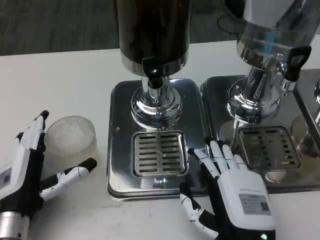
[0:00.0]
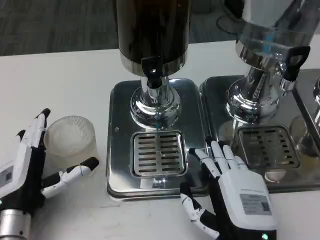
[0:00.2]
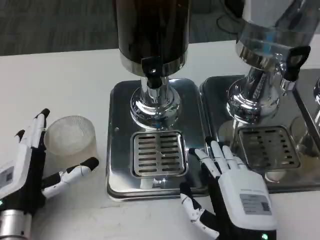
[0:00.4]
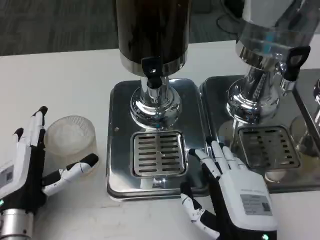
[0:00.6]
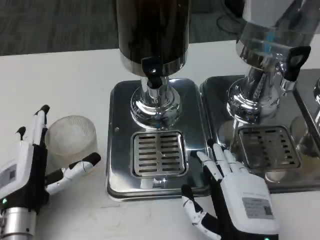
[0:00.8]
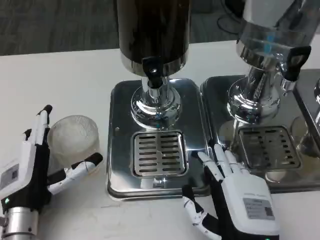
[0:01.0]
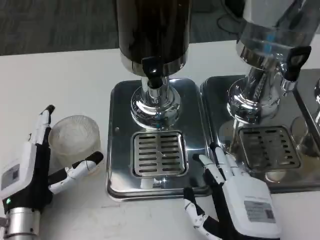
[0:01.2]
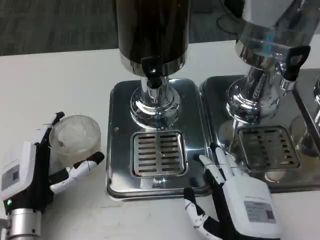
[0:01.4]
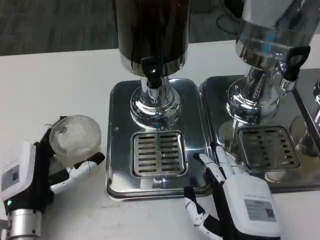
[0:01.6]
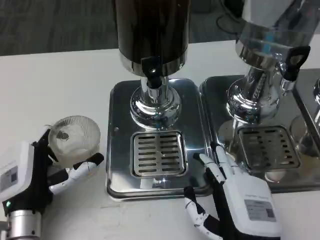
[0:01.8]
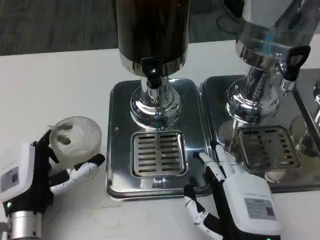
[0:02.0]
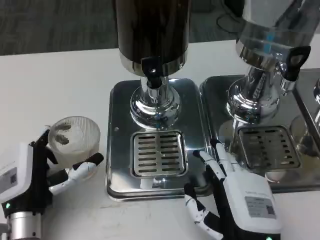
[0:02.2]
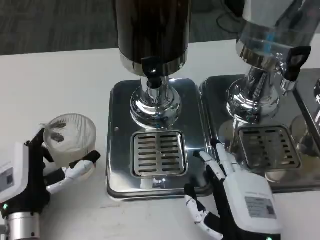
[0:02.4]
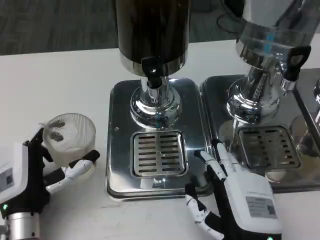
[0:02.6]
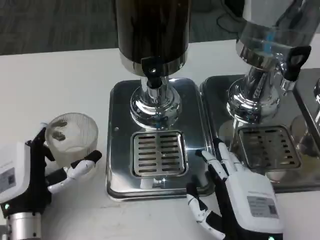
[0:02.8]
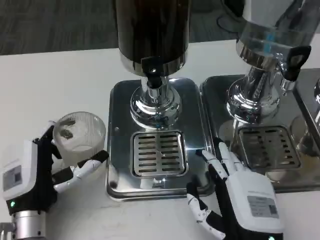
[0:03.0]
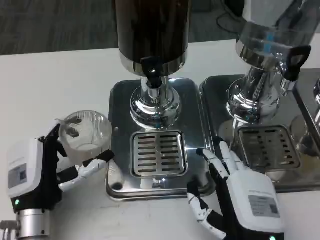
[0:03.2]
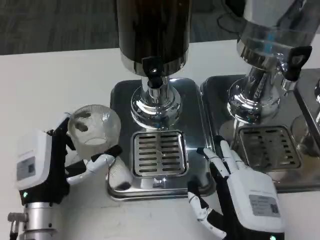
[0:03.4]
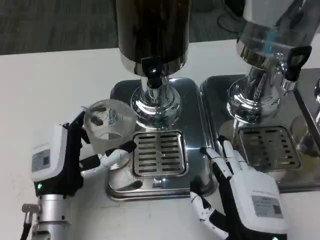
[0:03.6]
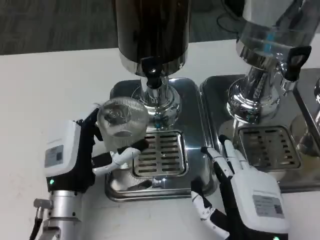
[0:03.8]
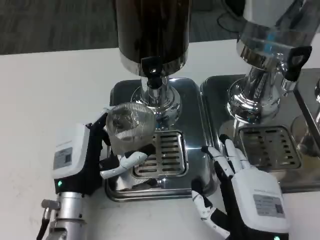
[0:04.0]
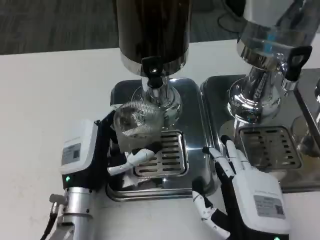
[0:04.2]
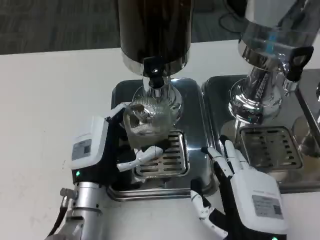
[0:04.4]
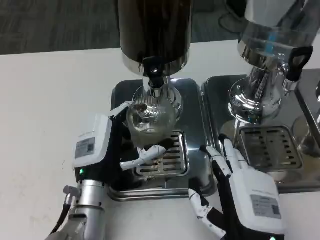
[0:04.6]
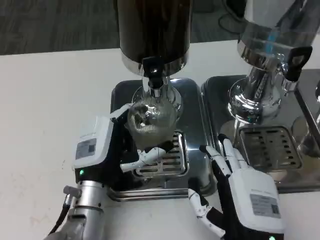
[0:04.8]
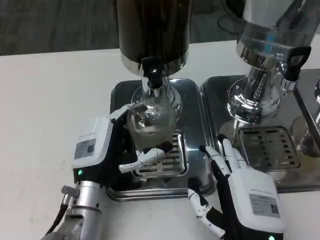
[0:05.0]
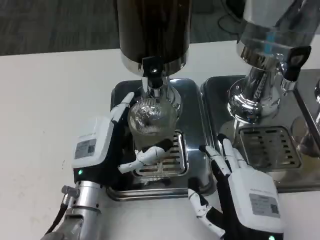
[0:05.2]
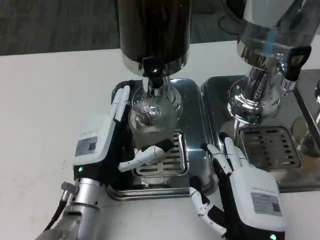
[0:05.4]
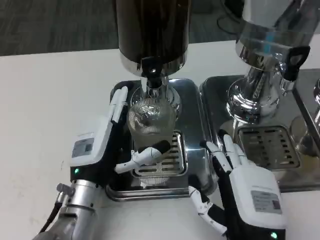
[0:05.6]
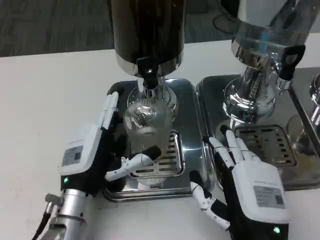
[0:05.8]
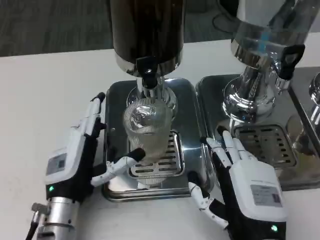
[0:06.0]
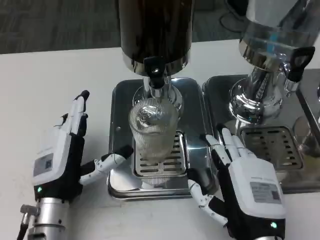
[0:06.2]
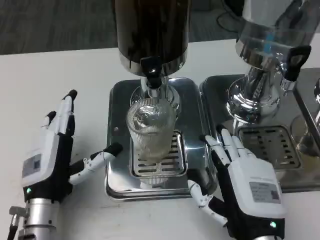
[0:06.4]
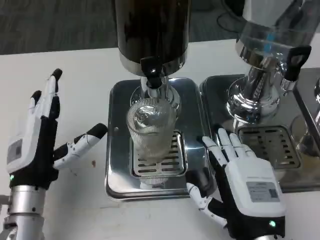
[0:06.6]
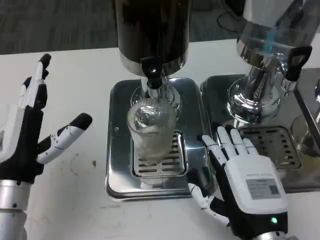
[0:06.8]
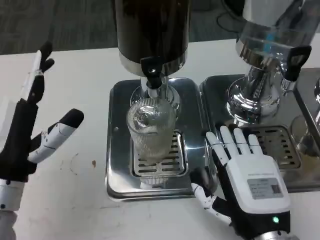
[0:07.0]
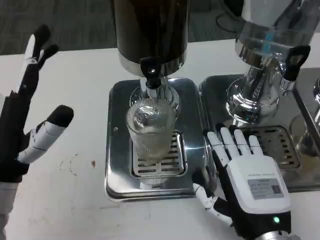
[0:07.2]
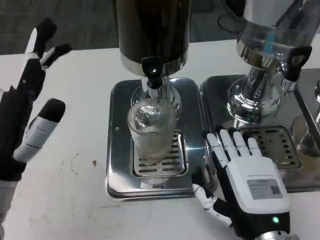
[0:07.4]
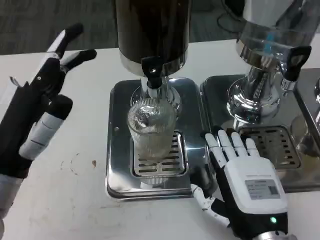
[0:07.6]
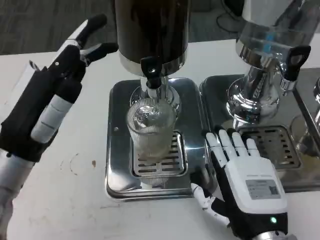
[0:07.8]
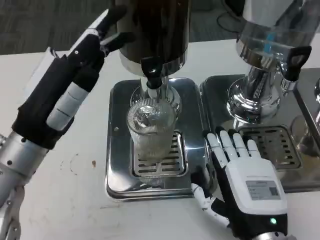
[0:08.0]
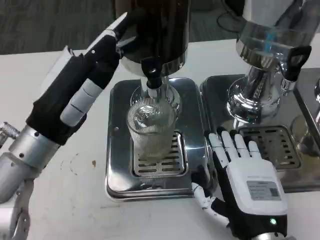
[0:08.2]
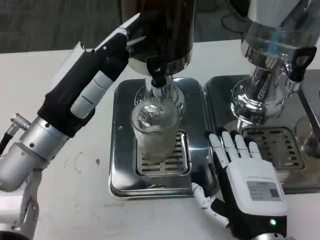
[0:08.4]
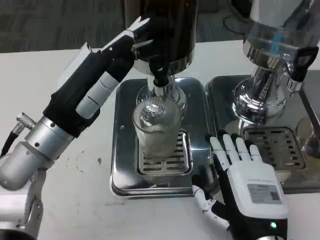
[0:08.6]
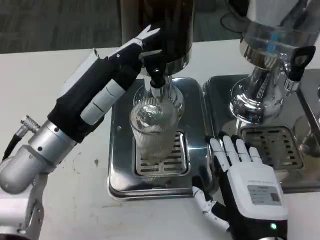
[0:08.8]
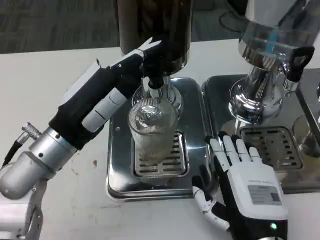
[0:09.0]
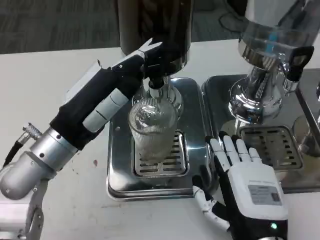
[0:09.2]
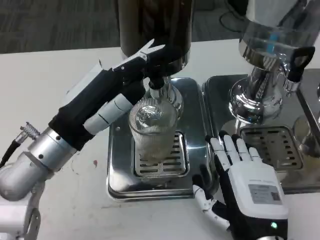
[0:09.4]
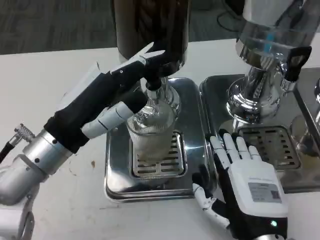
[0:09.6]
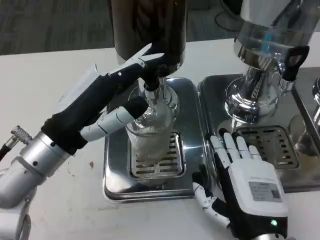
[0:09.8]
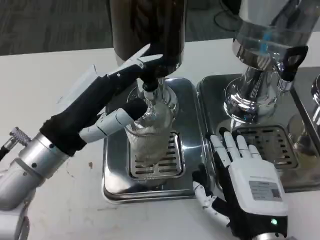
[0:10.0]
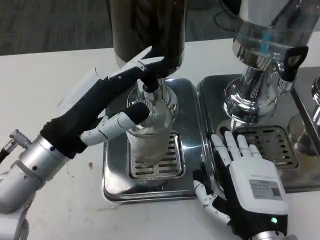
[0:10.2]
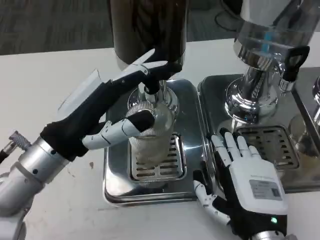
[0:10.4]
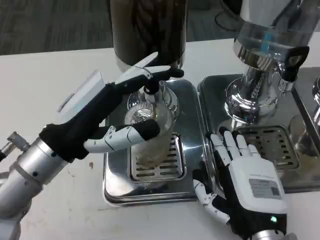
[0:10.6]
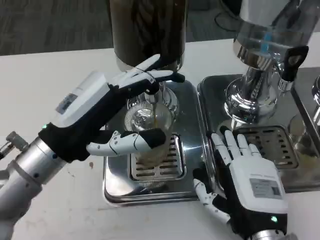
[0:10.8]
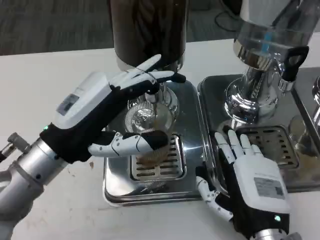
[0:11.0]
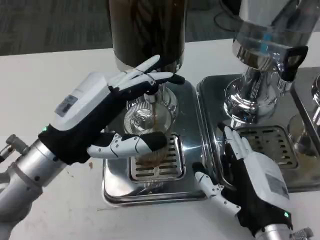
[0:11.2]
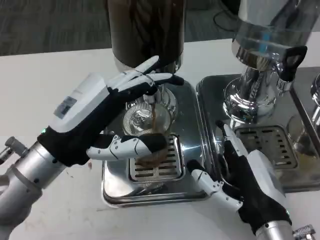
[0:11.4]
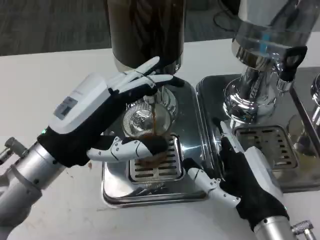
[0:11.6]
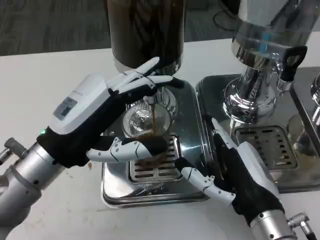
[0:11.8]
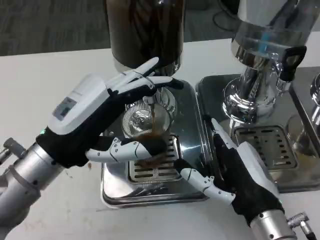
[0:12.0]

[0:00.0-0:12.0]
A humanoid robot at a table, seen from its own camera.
Task of the whole recording: Grasp the cup under the faucet to collect the drink, then remove the cup.
0:00.0 to 0:03.0: The hands make only small movements.
0:03.0 to 0:04.4: The left hand moves to the right, approximately 5 cm.
0:04.4 to 0:06.0: The left hand moves about 5 cm.
0:06.0 to 0:07.6: The left hand moves upward and to the left, approximately 15 cm.
0:07.6 to 0:09.0: The left hand shifts approximately 5 cm forward.

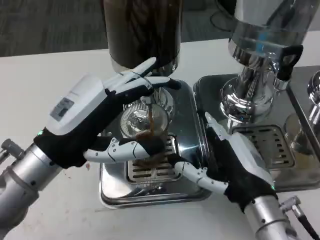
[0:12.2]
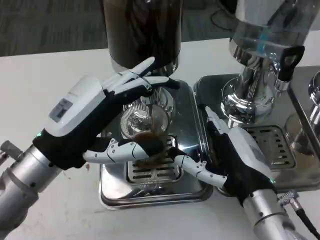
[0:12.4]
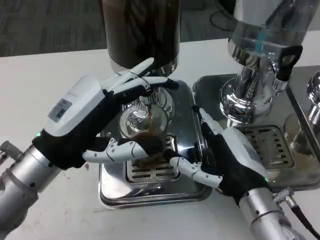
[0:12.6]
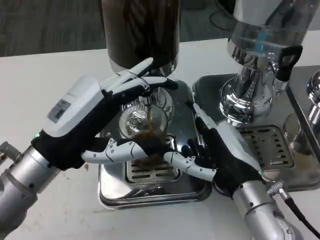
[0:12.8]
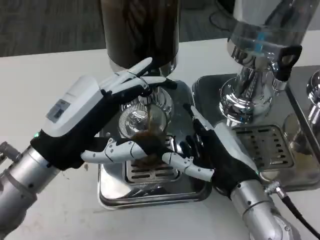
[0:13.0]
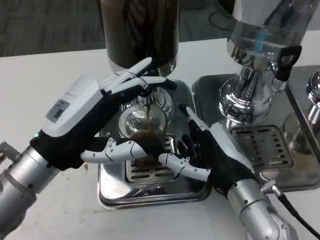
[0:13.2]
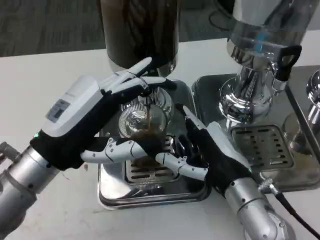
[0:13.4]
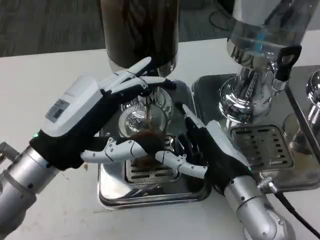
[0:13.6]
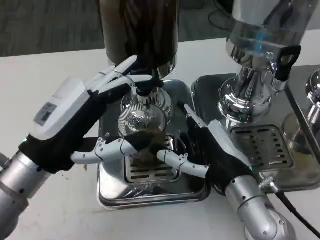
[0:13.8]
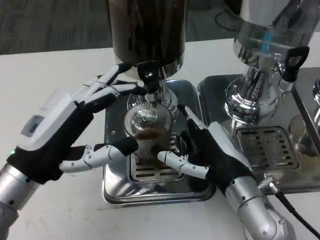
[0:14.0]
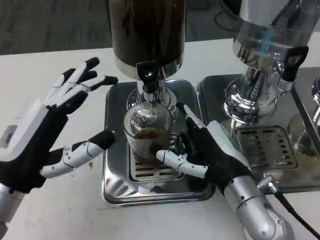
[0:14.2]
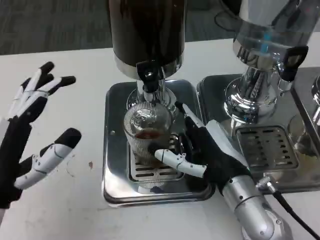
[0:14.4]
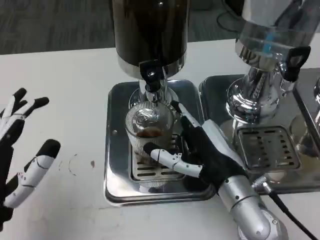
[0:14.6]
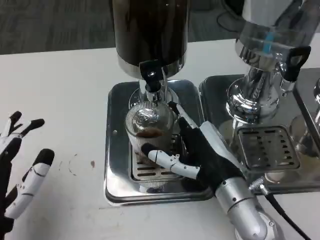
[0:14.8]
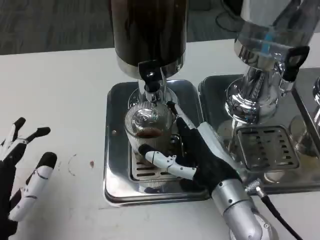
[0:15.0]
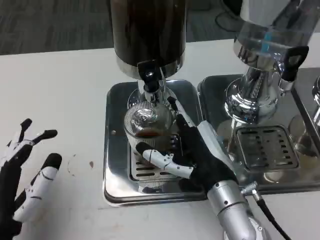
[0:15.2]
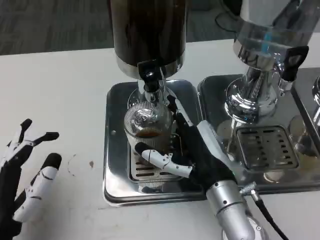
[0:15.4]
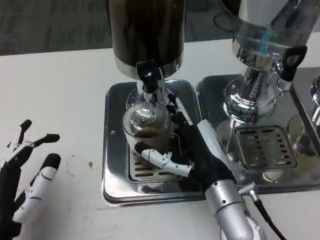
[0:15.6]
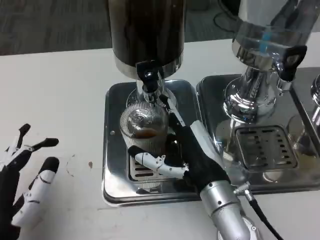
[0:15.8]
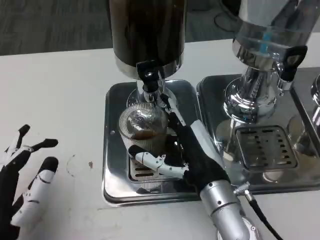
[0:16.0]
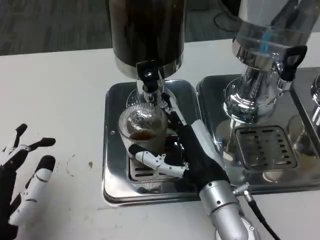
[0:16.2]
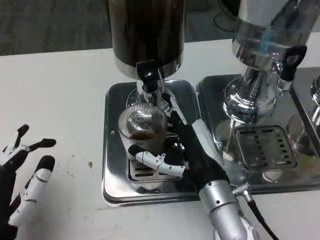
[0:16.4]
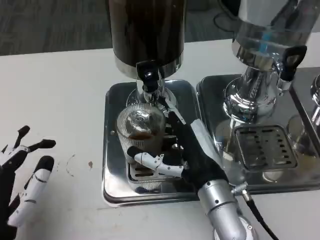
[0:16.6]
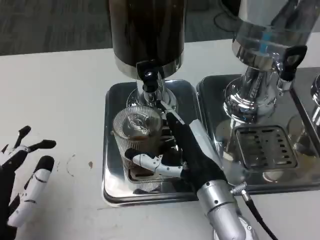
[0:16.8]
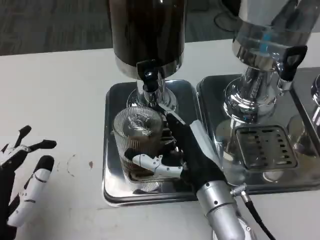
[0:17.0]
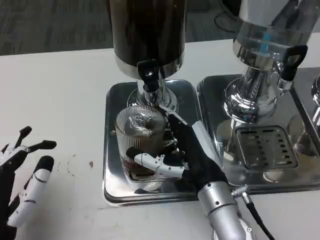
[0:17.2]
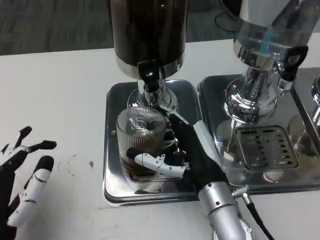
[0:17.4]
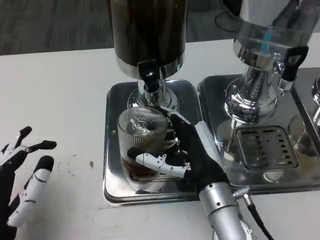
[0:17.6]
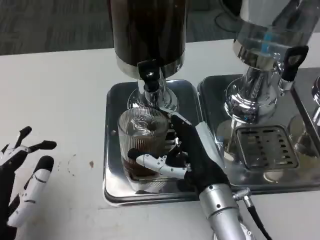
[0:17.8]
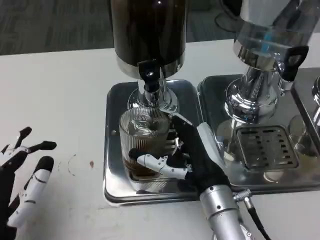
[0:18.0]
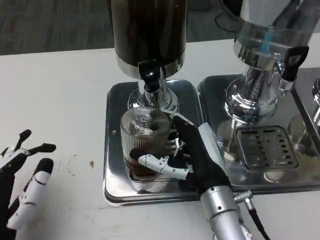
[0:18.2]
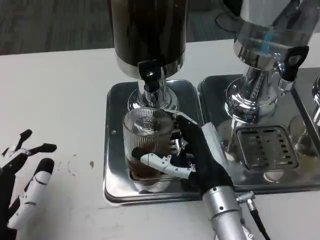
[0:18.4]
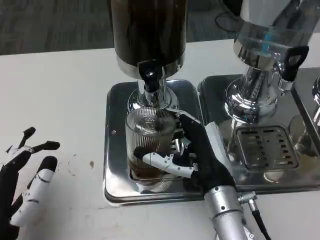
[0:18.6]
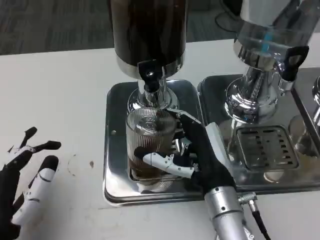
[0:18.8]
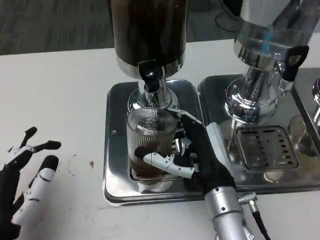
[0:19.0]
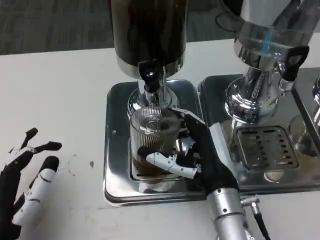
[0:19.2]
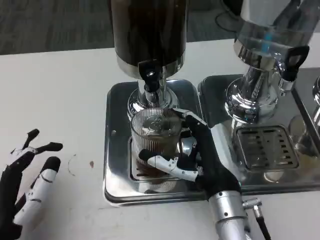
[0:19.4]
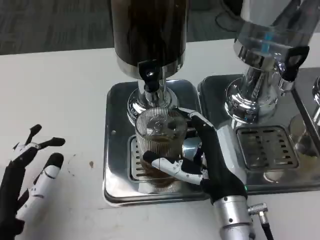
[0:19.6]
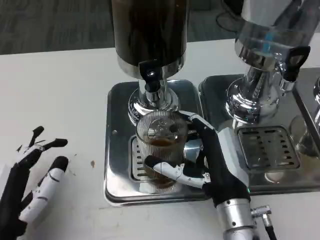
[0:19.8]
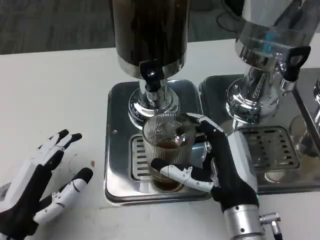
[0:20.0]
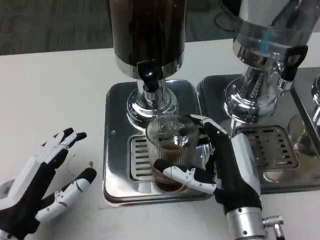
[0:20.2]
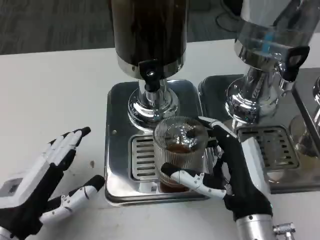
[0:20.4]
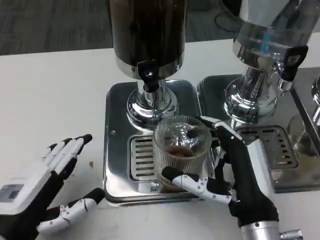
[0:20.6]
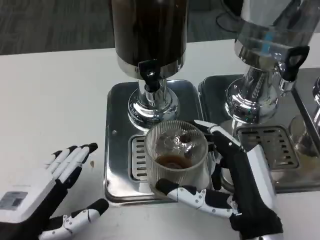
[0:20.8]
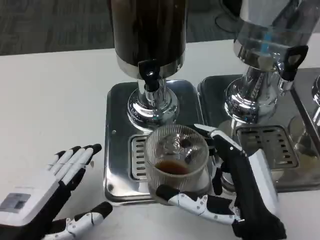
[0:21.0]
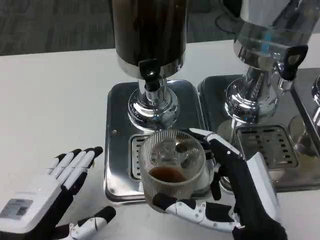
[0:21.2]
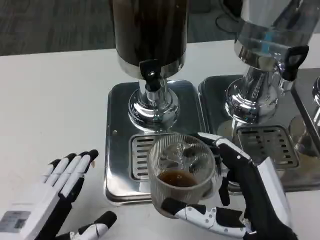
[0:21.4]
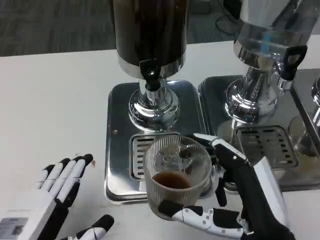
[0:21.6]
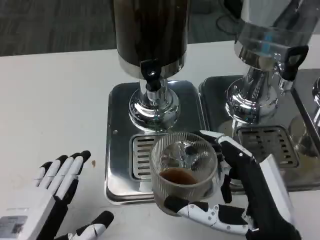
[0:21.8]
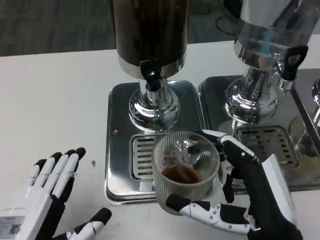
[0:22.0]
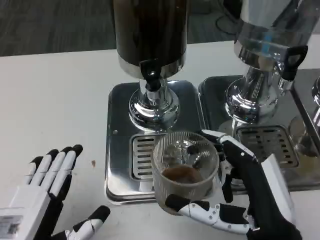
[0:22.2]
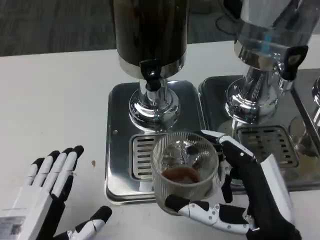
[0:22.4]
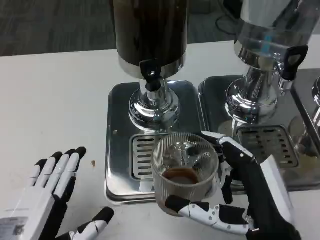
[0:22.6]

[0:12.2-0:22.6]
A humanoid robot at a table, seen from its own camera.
Task of the whole recording: Grasp the cup under the faucet to collect the drink, then remove the cup.
0:13.6 to 0:15.2: The left hand heads backward and downward, covering approximately 15 cm.
0:15.2 to 0:16.6: Both hands stay about where they are.
0:16.6 to 0:19.6: The hands make only small movements.
0:19.6 to 0:21.2: The right hand moves backward, some 10 cm.
0:21.2 to 0:22.6: The hands make only small movements.
